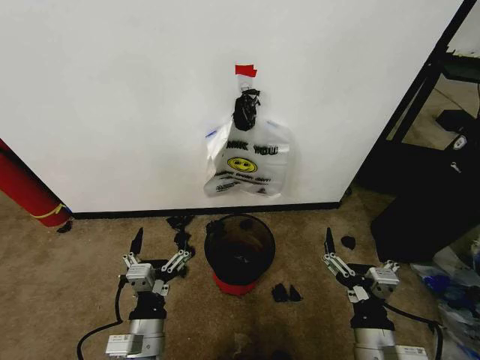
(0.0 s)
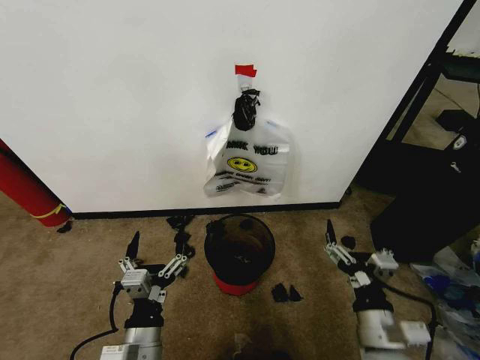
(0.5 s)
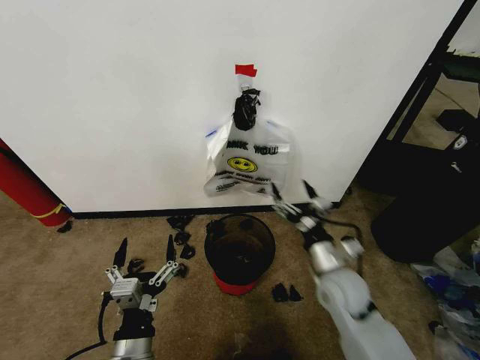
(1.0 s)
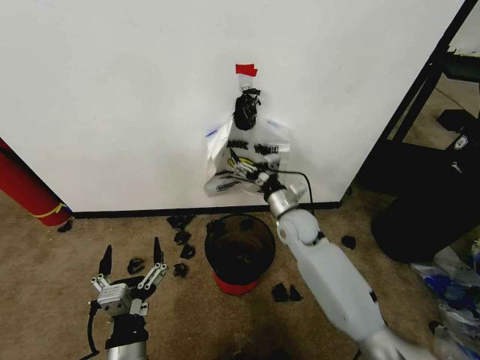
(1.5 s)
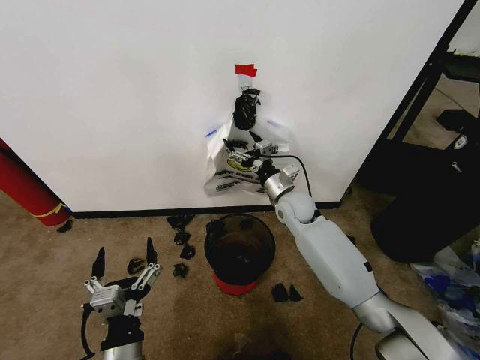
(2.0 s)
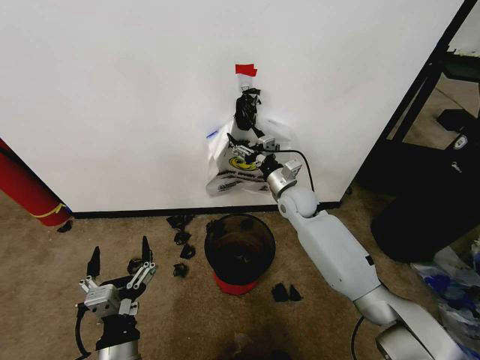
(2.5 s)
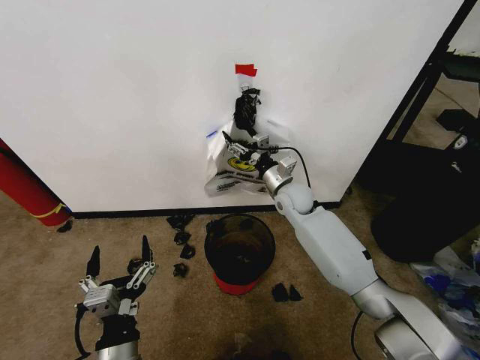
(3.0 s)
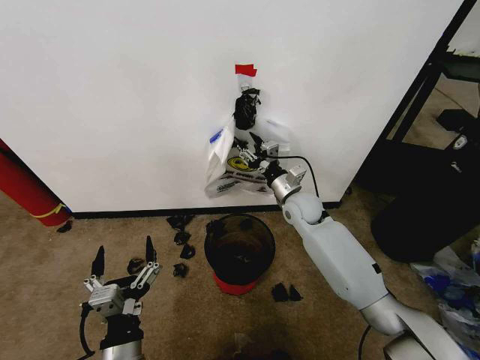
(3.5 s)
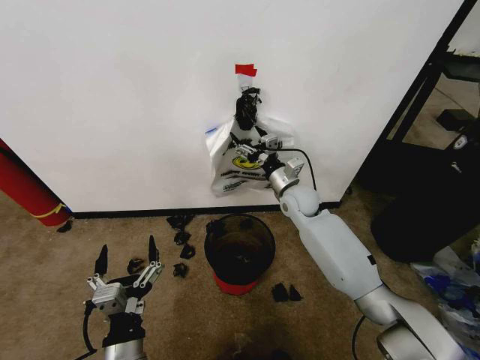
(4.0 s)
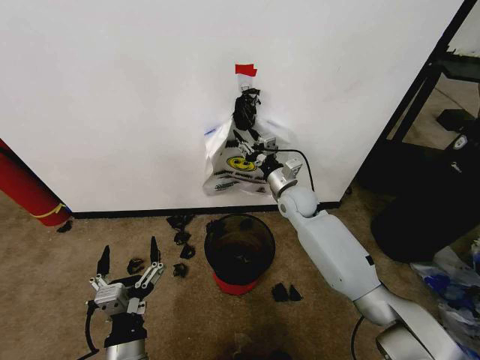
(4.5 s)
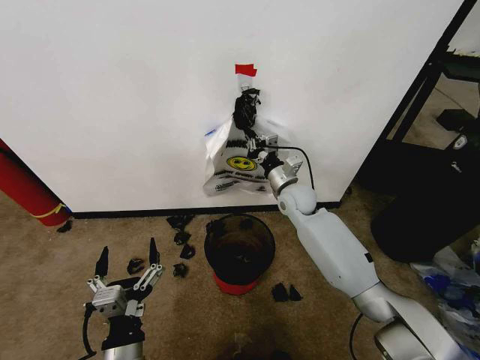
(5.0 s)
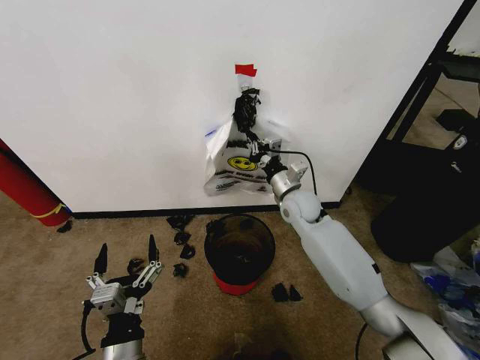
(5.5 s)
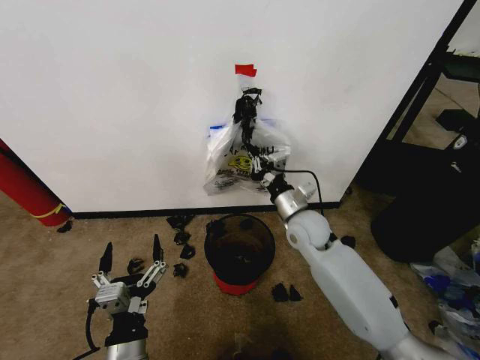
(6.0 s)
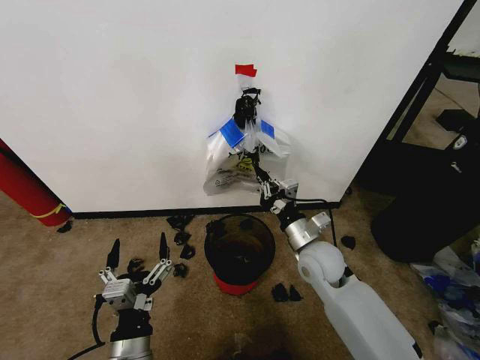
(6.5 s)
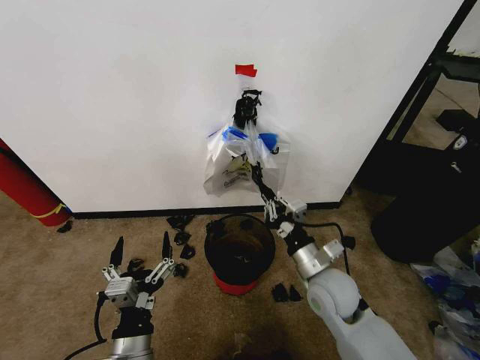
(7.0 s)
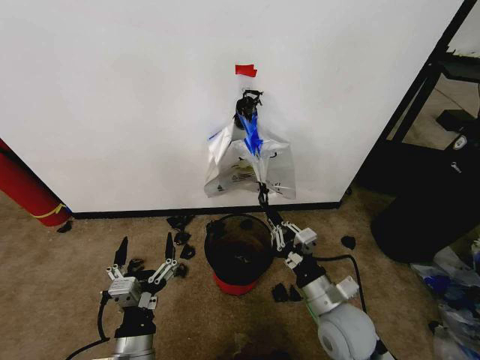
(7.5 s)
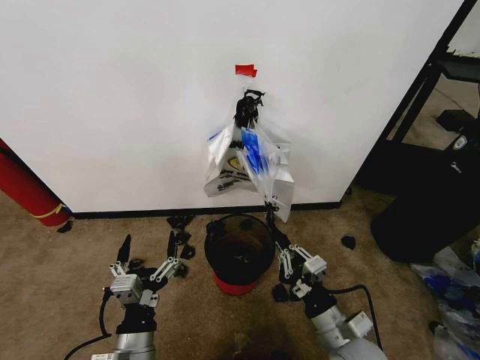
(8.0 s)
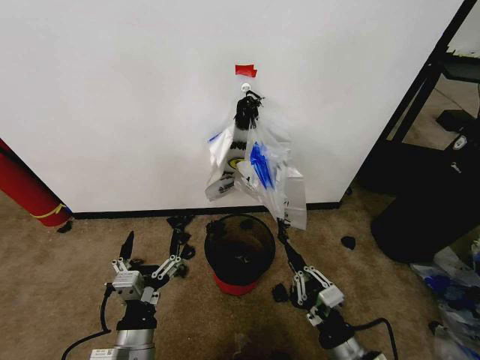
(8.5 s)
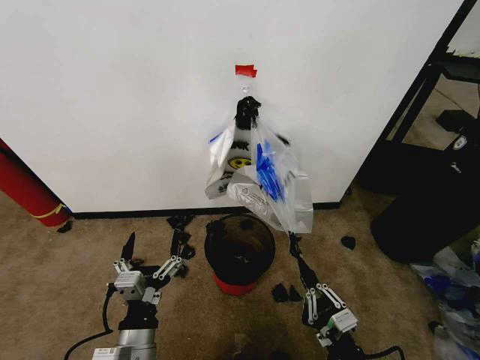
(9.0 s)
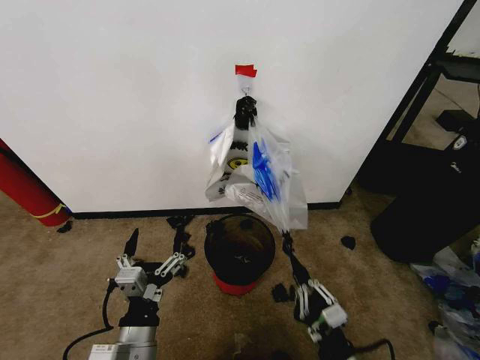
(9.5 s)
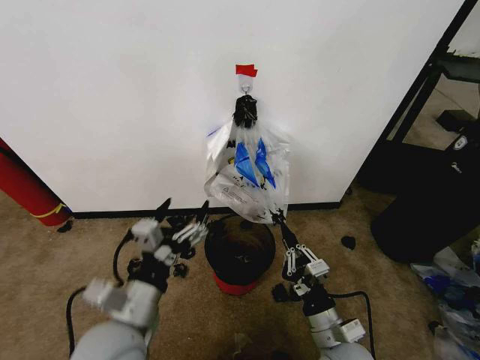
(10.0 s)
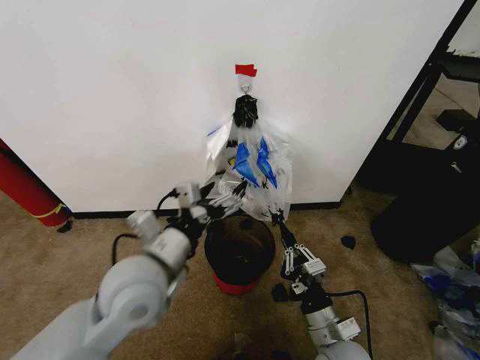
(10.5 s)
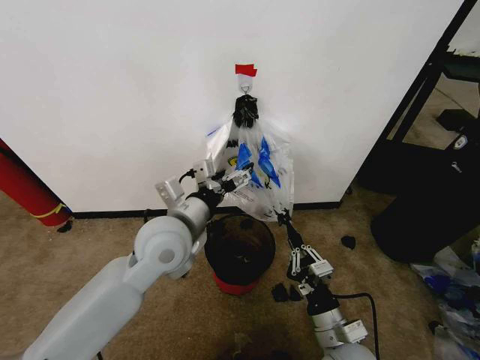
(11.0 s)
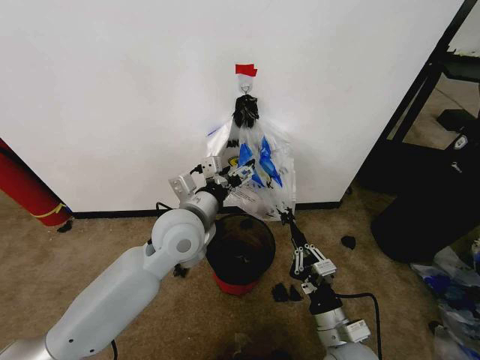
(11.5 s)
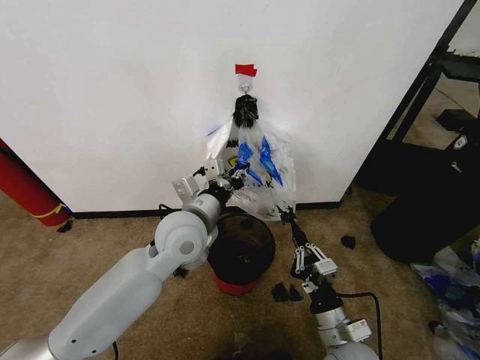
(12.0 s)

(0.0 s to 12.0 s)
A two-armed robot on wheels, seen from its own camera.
Task of the whole recording: Pick up the garbage bag from the wall and place it over the trash bin.
2.0 s - 4.0 s: The right gripper closes and opens again.
4.0 s - 6.0 s: The right gripper travels backward by approximately 10 cm, and closes.
6.0 s - 8.0 s: The right gripper moves backward, roughly 25 cm.
8.0 s - 10.0 s: The right gripper goes backward and returns, roughly 10 cm each way. Meanwhile the left gripper heads upward, covering about 10 cm.
10.0 s - 12.0 s: The left gripper is displaced forward and to the right by roughly 20 cm, and closes up.

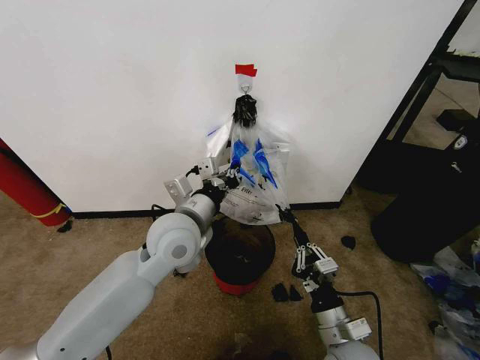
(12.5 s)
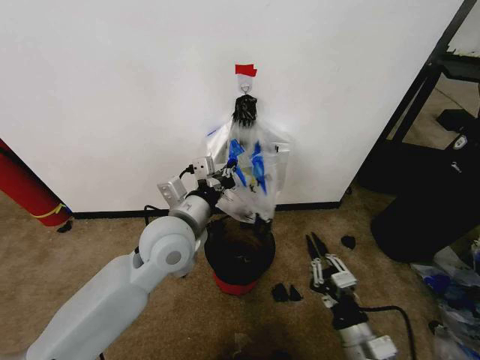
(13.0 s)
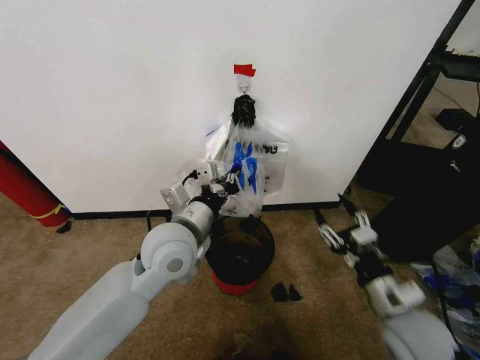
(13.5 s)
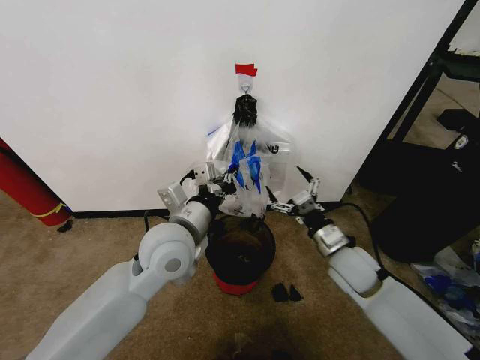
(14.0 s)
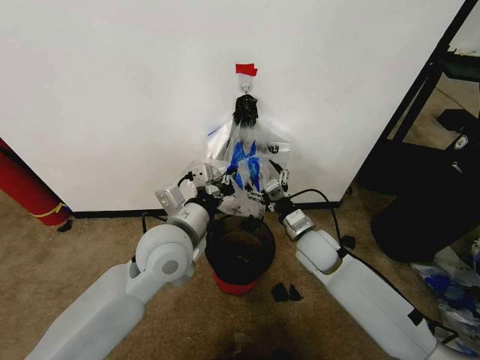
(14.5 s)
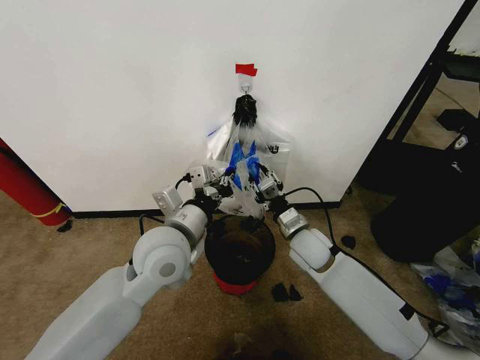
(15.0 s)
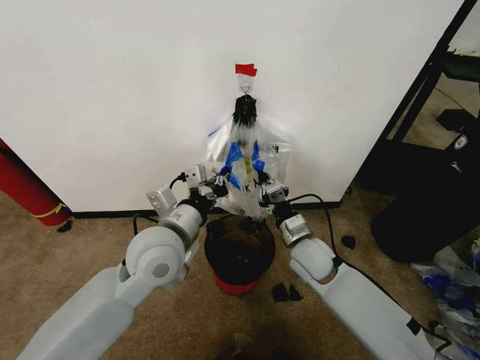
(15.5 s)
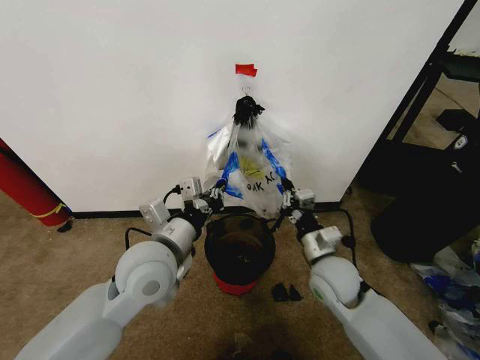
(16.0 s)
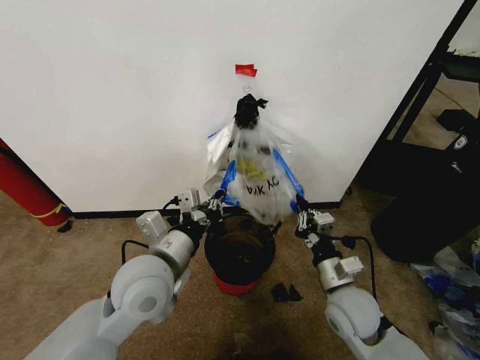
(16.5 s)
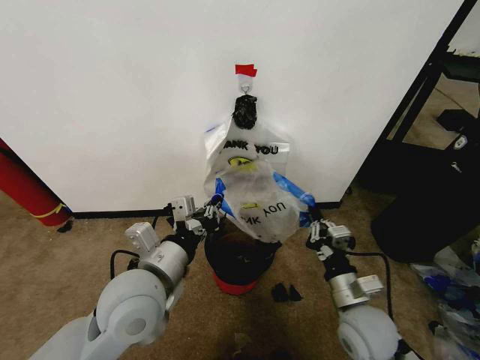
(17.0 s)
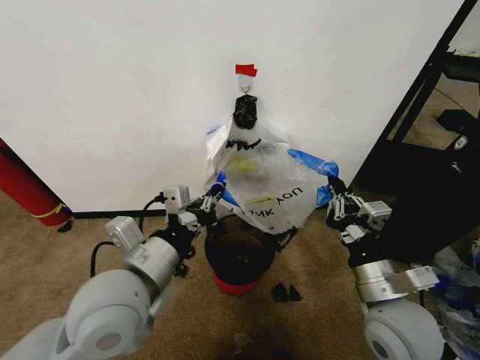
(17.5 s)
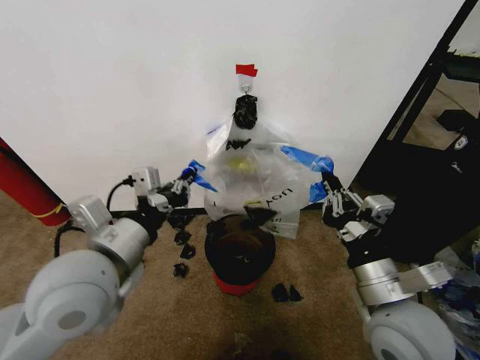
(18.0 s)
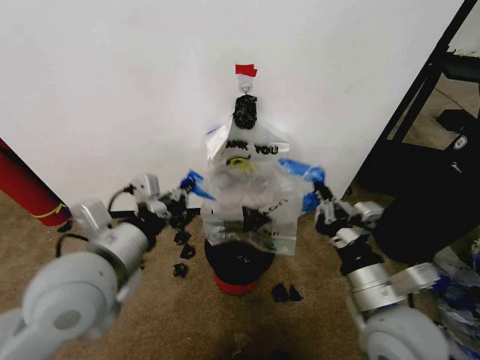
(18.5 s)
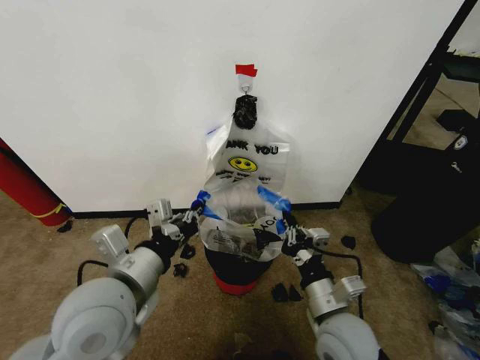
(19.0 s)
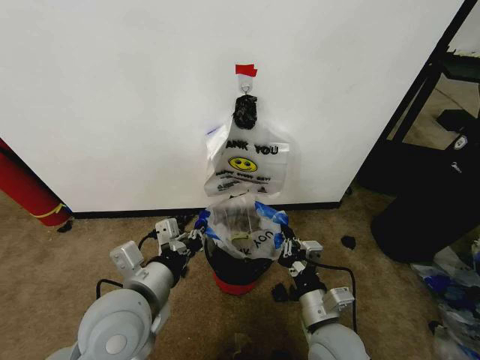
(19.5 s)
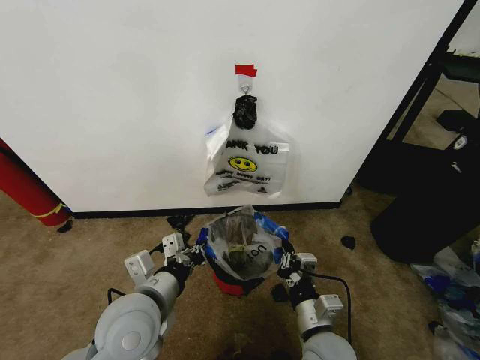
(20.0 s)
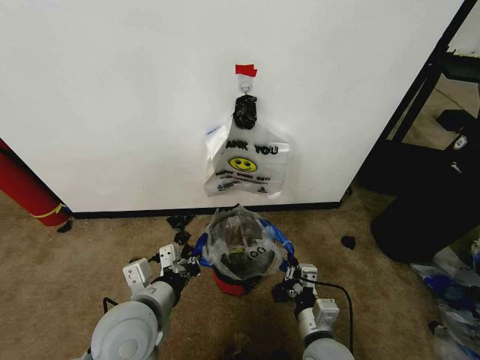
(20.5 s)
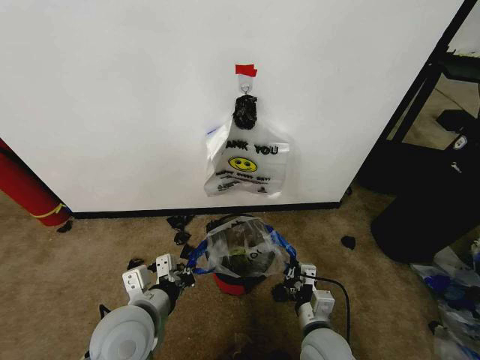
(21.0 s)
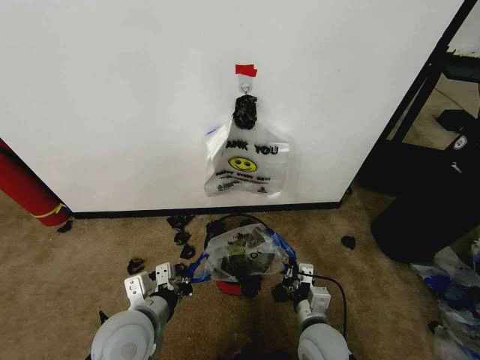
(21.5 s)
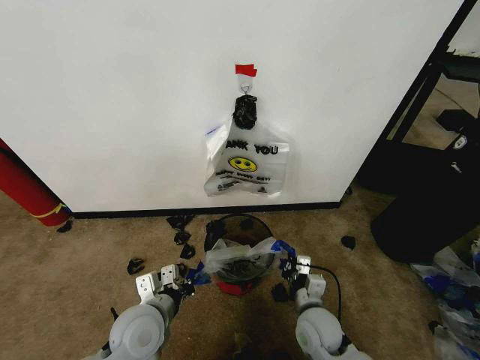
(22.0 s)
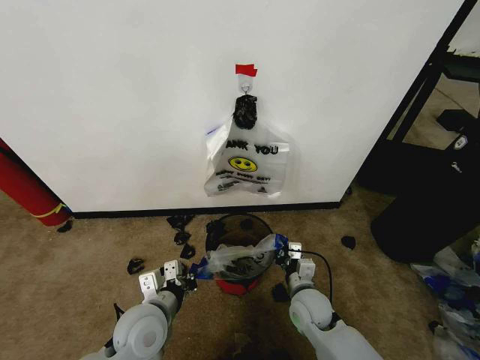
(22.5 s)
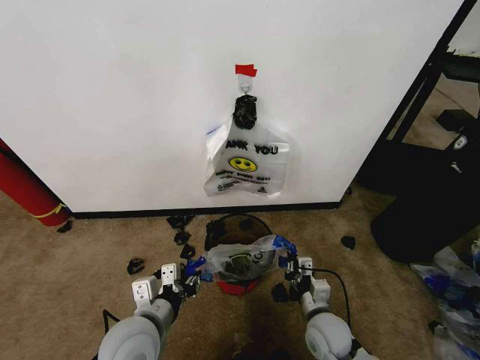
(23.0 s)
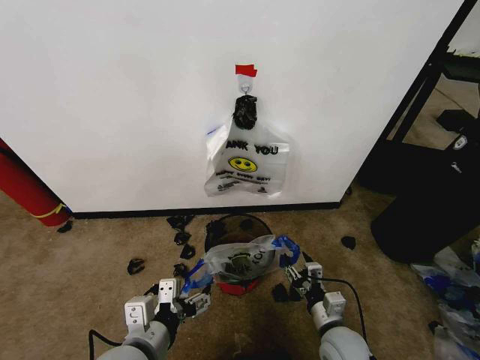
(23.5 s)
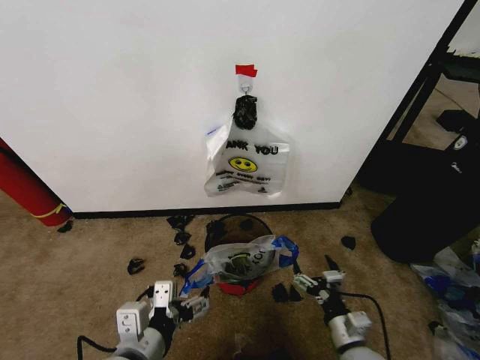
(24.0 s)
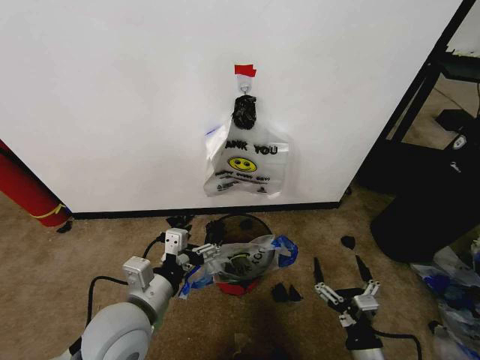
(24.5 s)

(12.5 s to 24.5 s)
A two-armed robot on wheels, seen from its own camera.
Task of the whole recording: Pick up the garbage bag from the wall and place it over the trash bin.
12.5 s - 14.5 s: The right gripper travels forward by about 20 cm, and opens up.
14.5 s - 16.5 s: The right gripper travels backward by roughly 15 cm, and closes; the left gripper moves backward, some 5 cm.
16.5 s - 18.5 s: The left gripper goes about 10 cm upward and to the left. Meanwhile the right gripper heads upward and backward, covering some 15 cm.
18.5 s - 20.5 s: The grippers both shift downward by approximately 15 cm.
20.5 s - 22.5 s: The left gripper moves downward, approximately 10 cm, while the right gripper heads forward and downward, covering roughly 15 cm.
22.5 s - 24.5 s: The right gripper goes some 20 cm backward and to the right, and opens. The left gripper heads upward, covering approximately 10 cm, and opens its fingers.

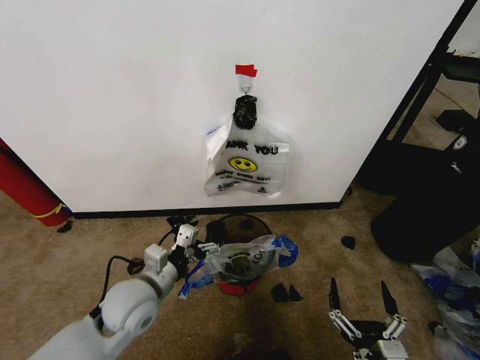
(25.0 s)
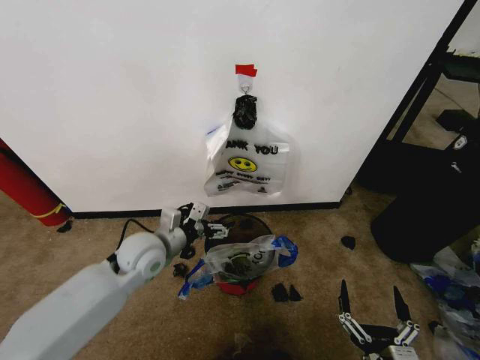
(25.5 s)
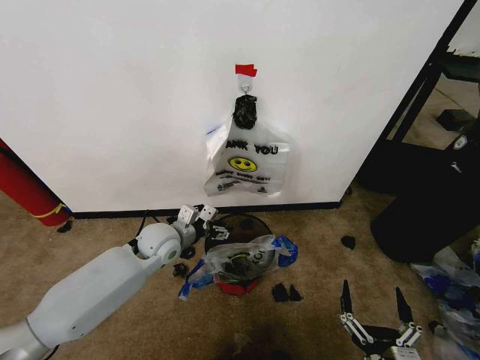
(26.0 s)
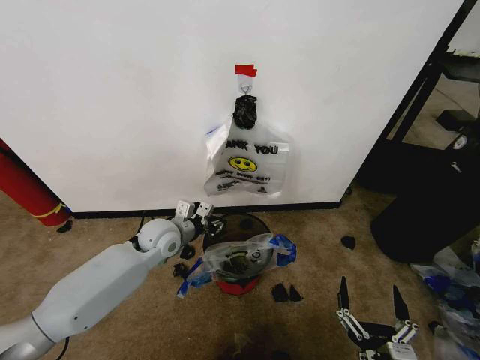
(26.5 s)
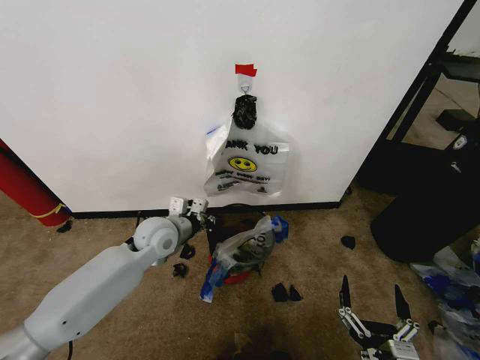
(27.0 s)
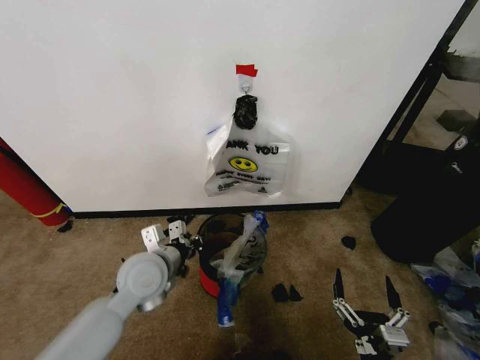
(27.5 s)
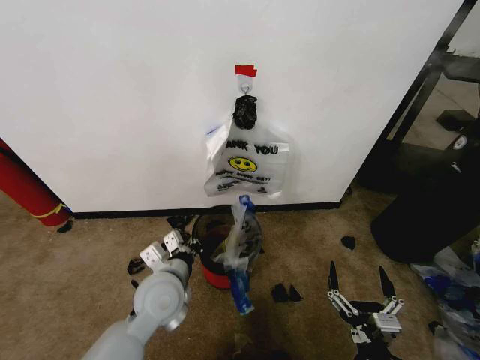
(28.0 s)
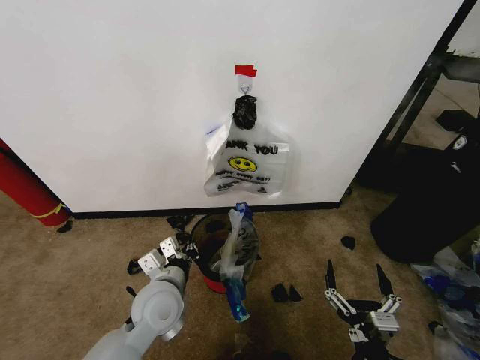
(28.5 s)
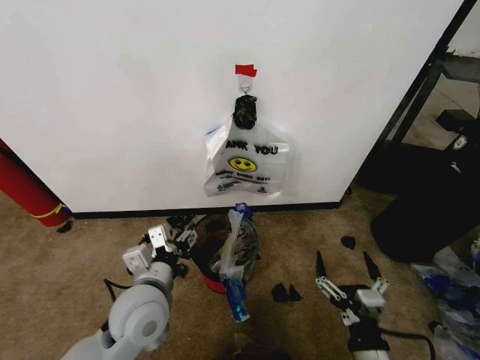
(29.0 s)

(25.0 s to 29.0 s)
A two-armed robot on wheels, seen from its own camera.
Task of the whole recording: Pick up the garbage bag from the wall and place it over the trash bin.
25.0 s - 27.0 s: The left gripper heads forward, covering roughly 15 cm, and closes.
27.0 s - 29.0 s: The left gripper shifts approximately 20 cm backward, and opens. The right gripper travels forward by roughly 5 cm.
